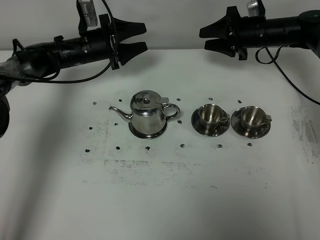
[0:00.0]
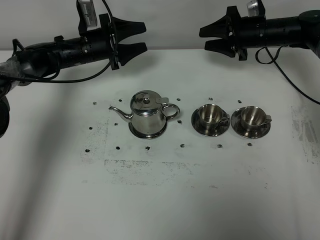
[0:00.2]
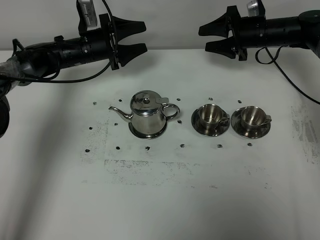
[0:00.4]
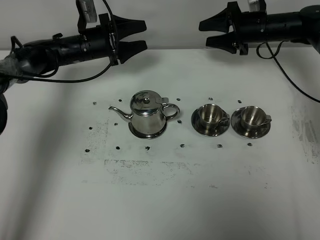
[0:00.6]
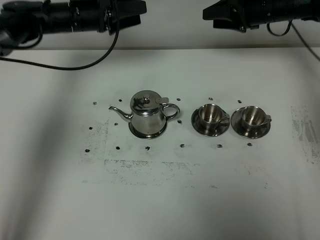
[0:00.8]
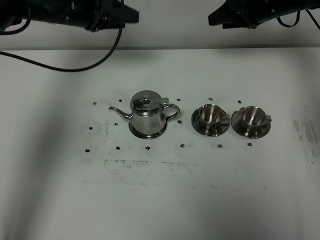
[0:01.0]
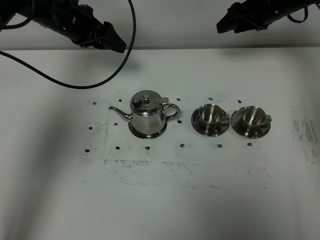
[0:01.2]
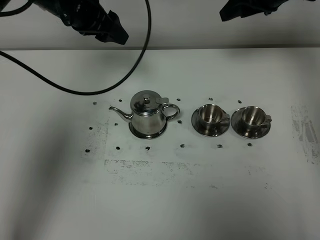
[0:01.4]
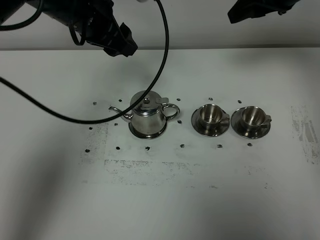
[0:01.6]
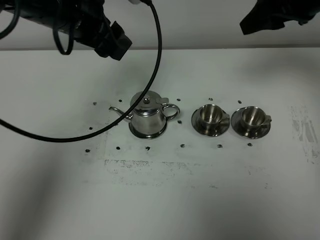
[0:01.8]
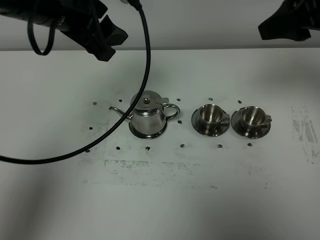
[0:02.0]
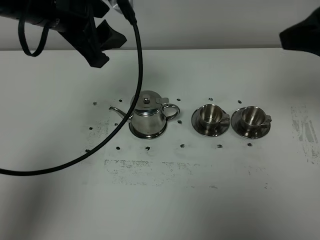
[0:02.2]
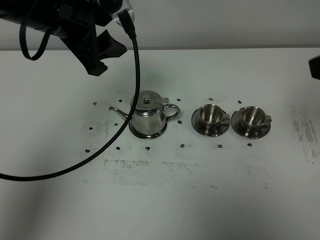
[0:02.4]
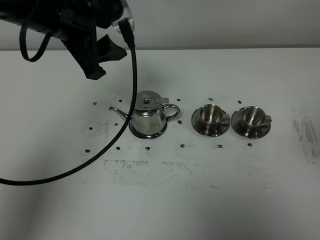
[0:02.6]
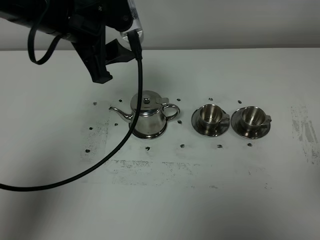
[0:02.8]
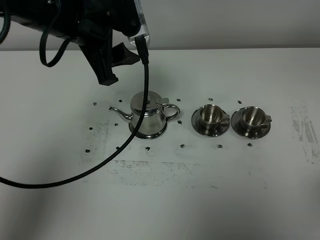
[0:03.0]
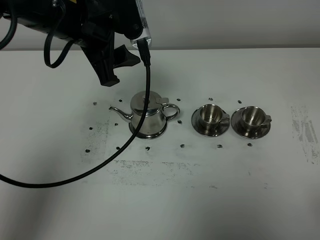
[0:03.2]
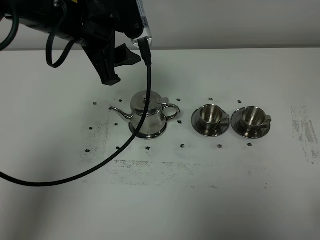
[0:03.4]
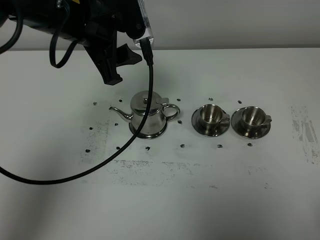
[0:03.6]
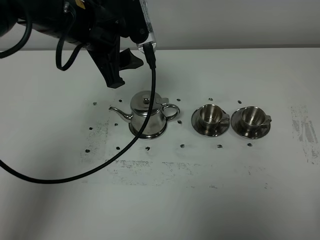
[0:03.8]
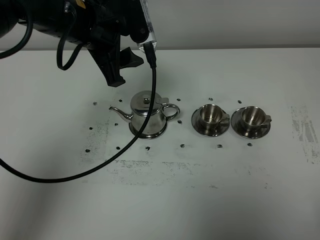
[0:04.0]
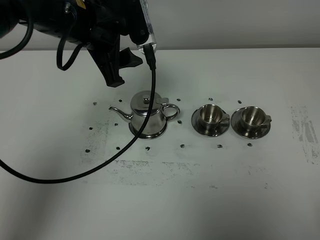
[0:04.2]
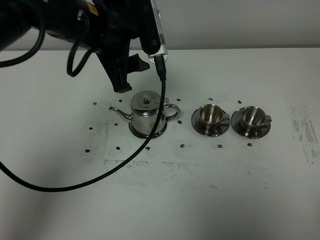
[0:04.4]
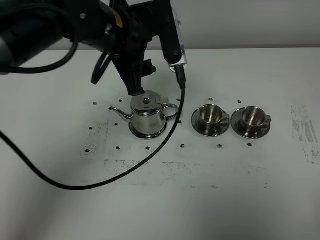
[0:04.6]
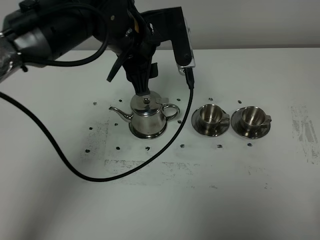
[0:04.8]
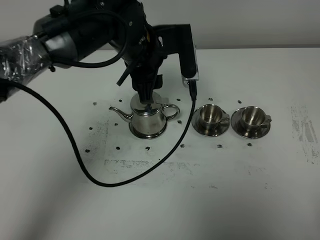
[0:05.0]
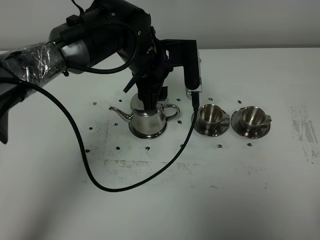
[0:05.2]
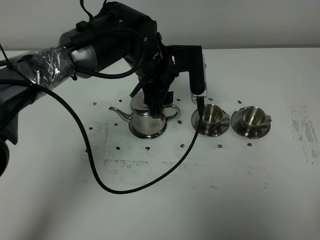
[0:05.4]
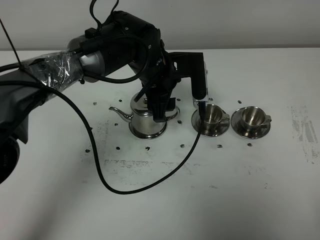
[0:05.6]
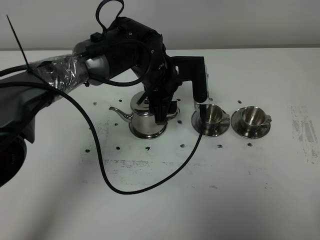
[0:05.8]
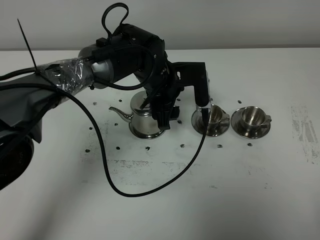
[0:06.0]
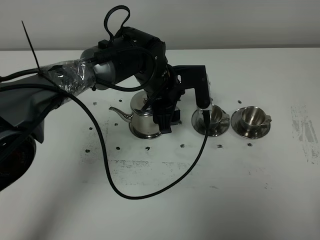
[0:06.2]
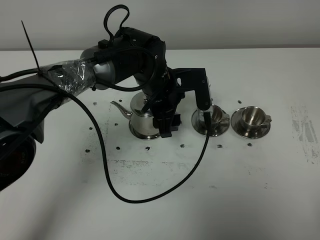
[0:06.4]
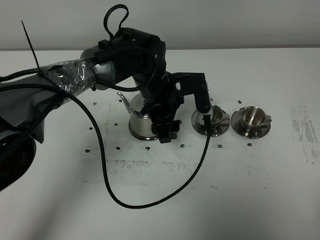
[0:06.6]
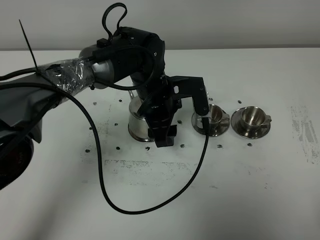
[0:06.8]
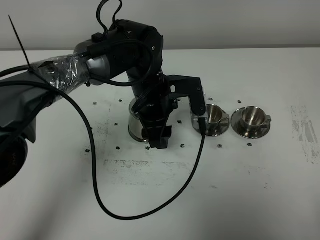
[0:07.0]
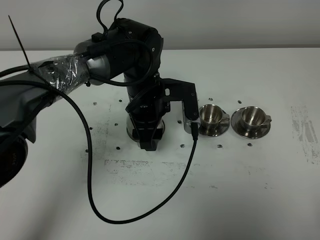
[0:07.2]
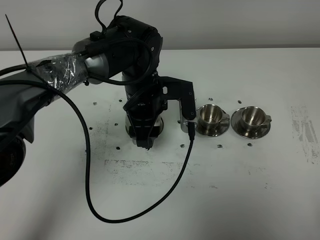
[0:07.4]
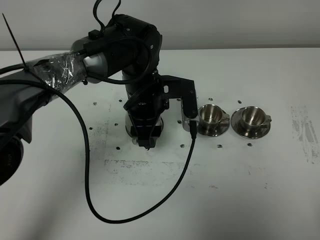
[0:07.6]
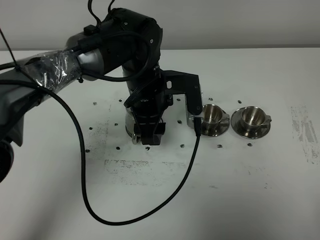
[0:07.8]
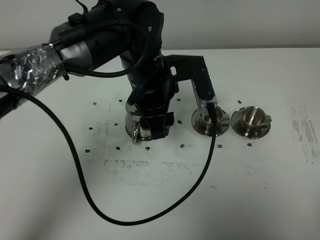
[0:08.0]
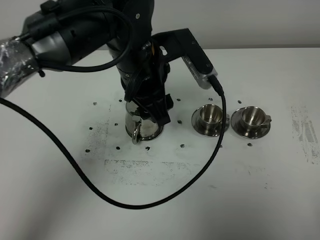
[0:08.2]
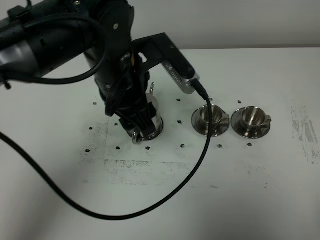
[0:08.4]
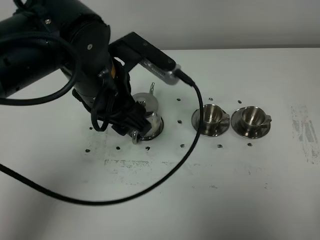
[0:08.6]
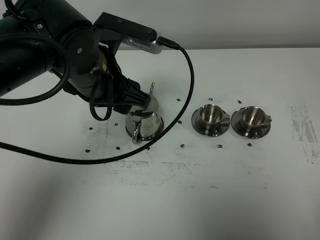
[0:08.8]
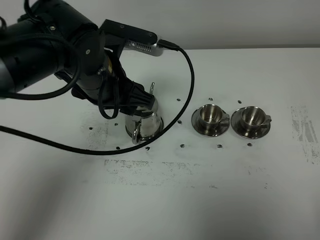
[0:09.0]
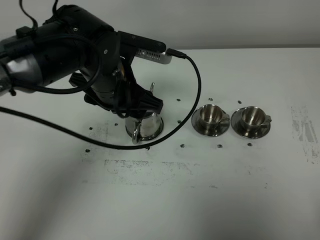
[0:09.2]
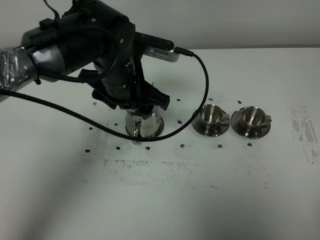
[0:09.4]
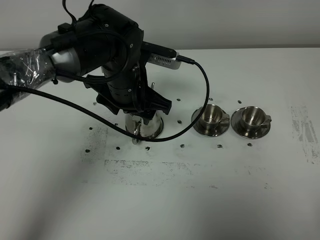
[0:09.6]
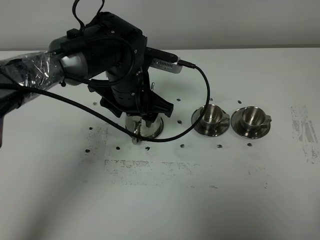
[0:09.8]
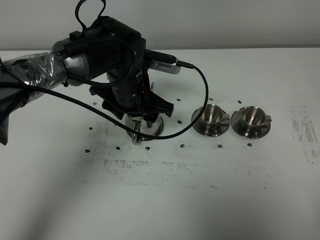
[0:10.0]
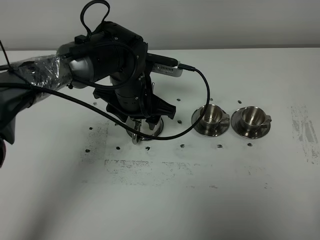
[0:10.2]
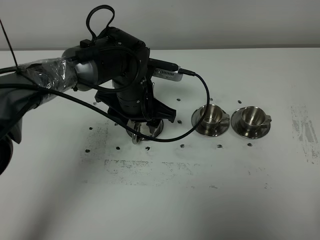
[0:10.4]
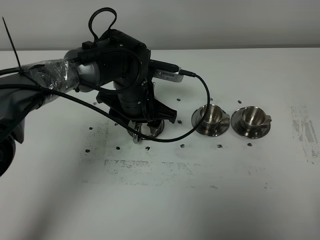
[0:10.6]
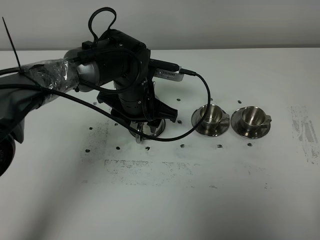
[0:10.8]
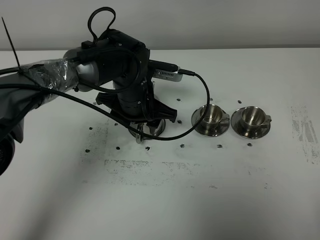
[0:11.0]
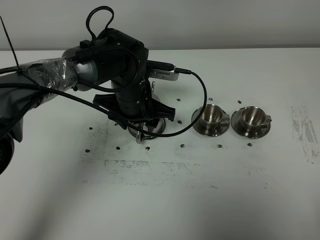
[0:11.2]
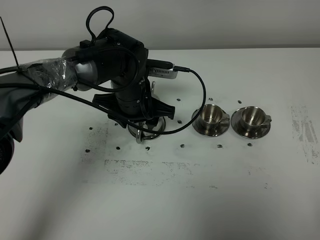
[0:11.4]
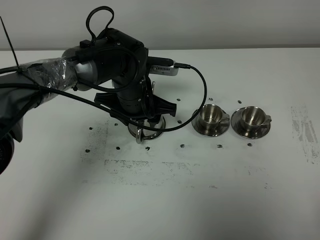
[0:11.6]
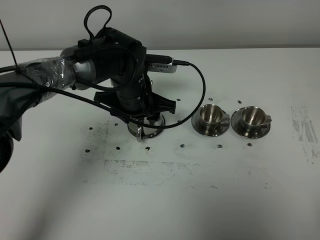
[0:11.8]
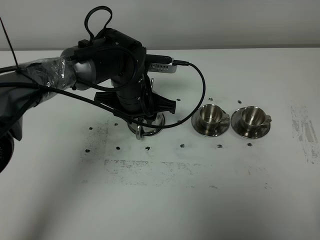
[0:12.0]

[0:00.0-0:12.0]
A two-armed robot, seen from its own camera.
Task of the whole recording: grasp the stainless steel teapot and pour the tea into the two stainless steel teacups one by one, put the stainless steel teapot back in its original place.
0:00.0 to 0:01.6: The two grippers go approximately 25 cm upward and backward.
0:01.6 to 0:03.0: The left gripper travels backward by some 5 cm. Meanwhile the right gripper moves backward, approximately 40 cm.
0:03.0 to 0:04.4: The right gripper goes approximately 5 cm downward.
0:04.4 to 0:06.0: The left gripper moves downward and to the right, roughly 15 cm.
0:07.6 to 0:09.0: The left gripper shifts roughly 10 cm upward and to the left.
0:09.0 to 0:10.4: The left gripper moves downward and forward, approximately 10 cm.
0:10.4 to 0:12.0: The left gripper closes up.

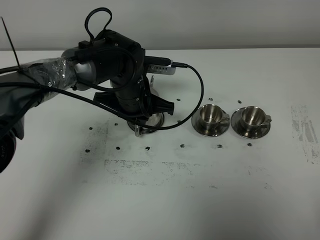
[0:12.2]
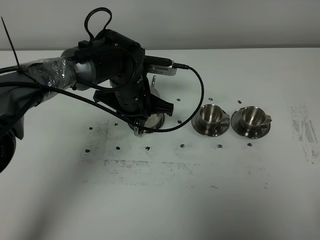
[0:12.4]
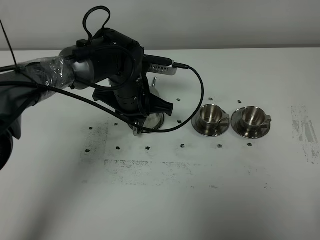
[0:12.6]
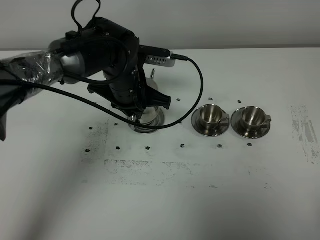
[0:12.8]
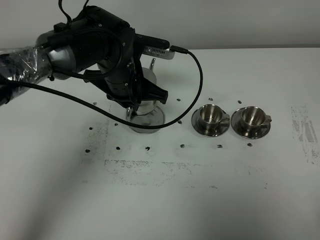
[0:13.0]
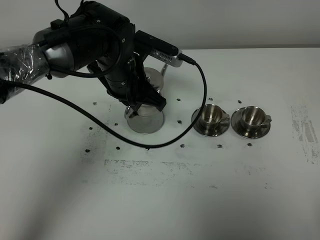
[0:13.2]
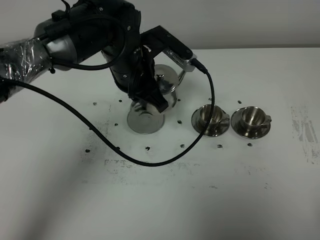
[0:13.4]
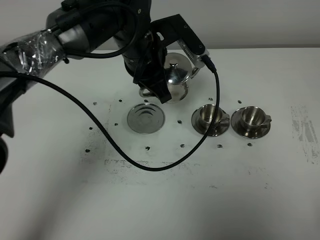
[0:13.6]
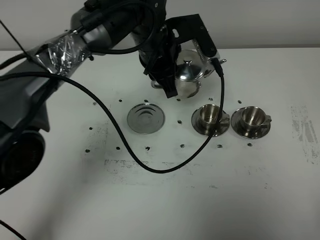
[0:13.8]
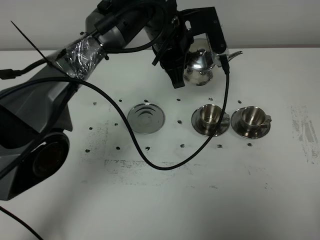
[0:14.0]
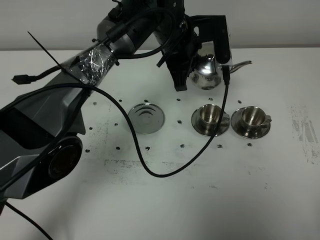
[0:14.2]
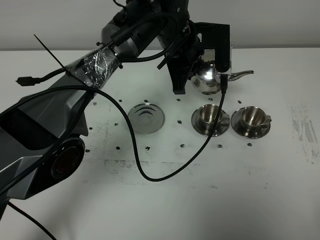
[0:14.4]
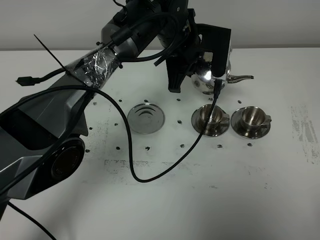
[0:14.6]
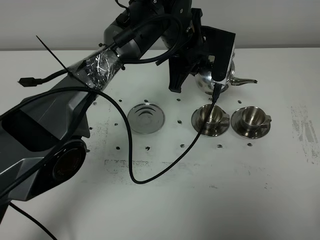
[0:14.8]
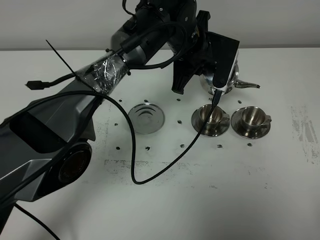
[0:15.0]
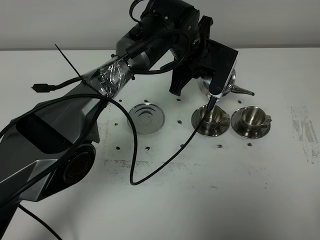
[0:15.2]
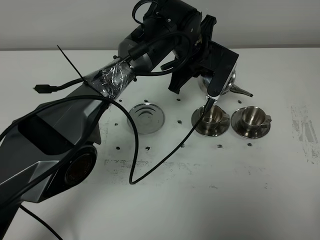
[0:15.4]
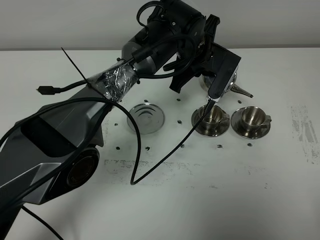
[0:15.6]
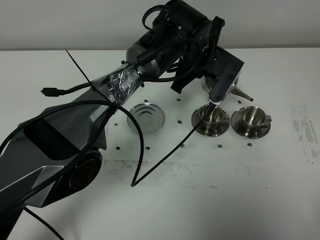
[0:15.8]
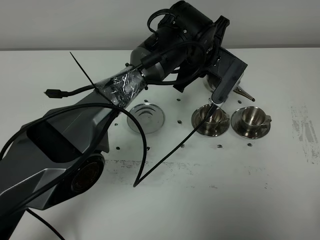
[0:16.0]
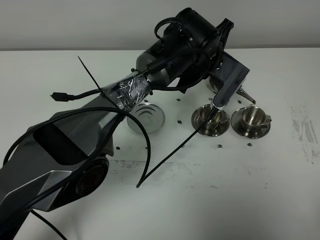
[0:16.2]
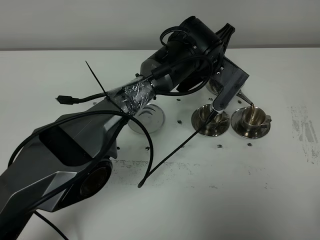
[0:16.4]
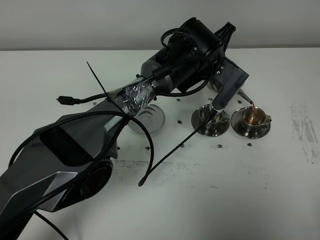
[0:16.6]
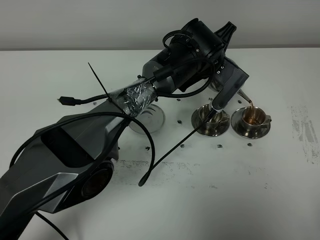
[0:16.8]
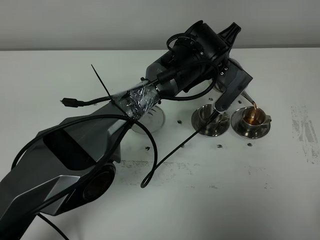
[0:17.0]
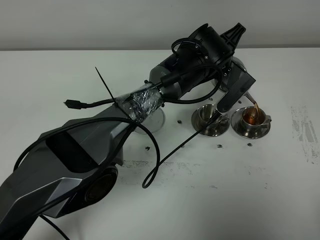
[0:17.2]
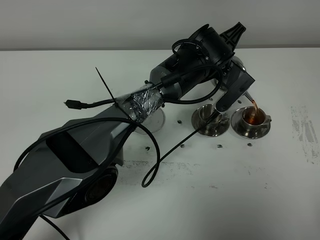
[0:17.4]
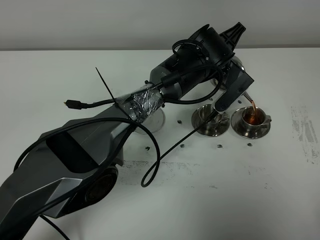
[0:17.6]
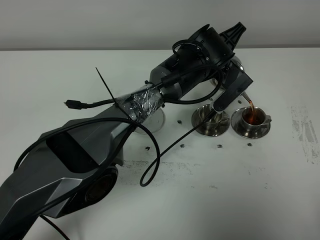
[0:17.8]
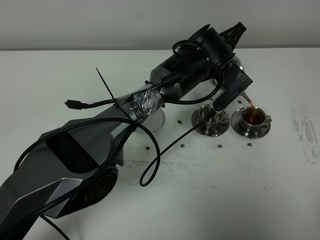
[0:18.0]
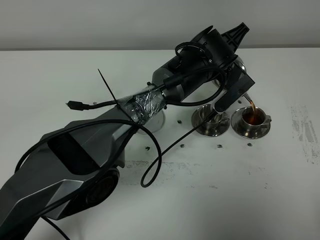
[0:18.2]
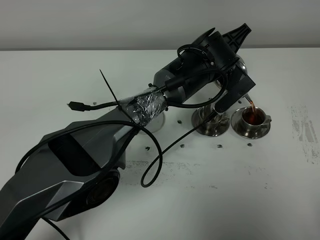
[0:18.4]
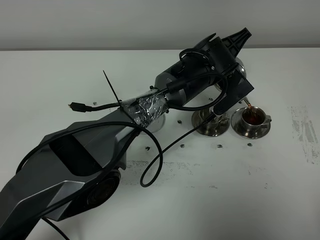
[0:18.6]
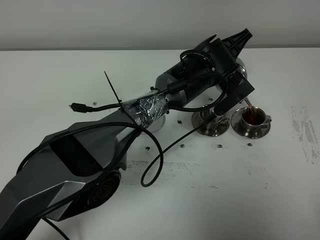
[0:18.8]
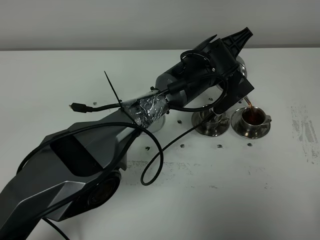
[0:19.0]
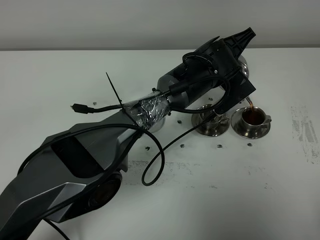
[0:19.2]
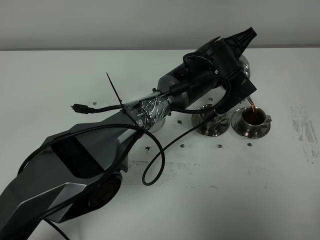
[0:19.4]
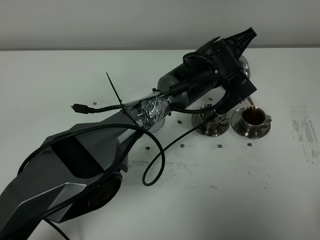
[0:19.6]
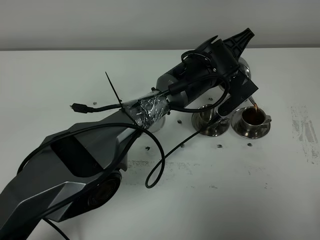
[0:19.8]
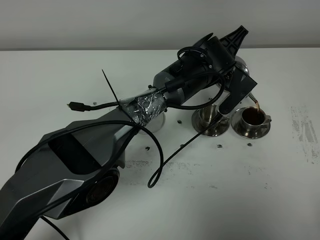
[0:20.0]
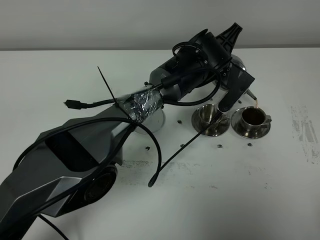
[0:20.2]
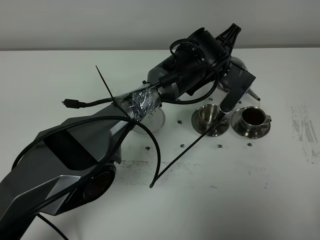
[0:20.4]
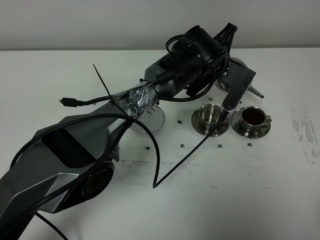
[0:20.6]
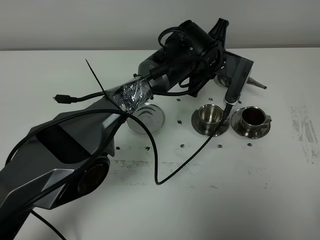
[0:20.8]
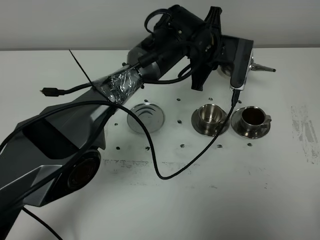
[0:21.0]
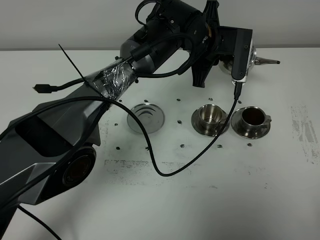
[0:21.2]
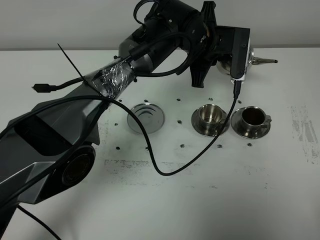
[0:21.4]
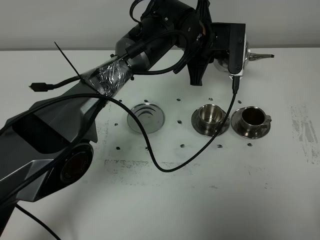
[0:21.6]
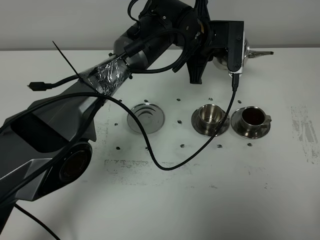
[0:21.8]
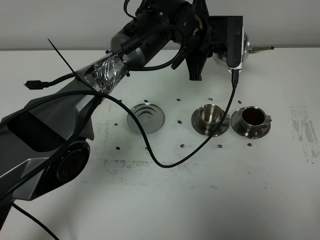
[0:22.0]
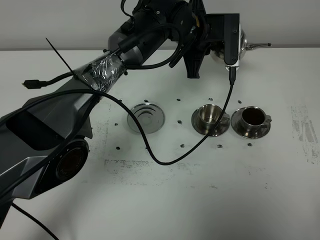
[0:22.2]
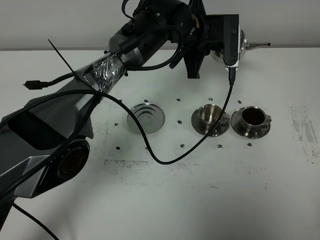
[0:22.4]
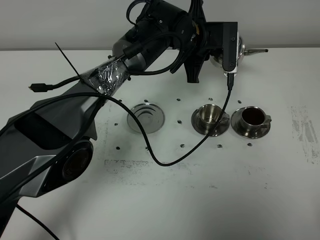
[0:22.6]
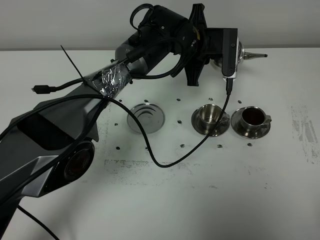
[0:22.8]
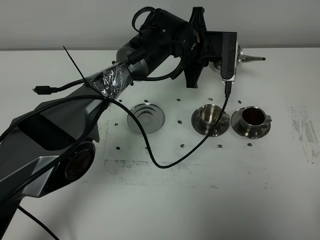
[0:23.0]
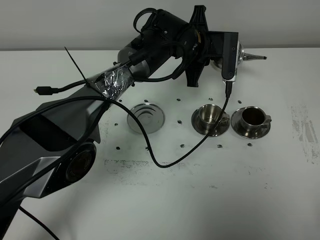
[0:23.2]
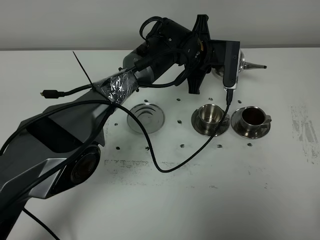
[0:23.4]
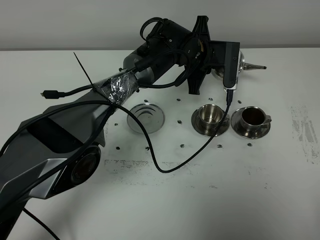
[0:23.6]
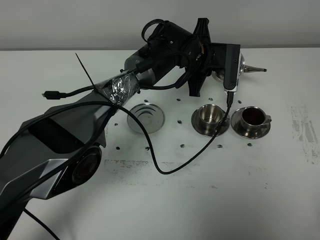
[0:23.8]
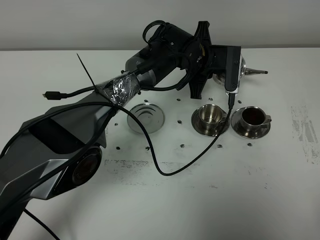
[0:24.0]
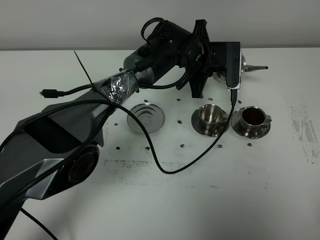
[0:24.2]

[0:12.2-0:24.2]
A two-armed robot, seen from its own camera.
Task of the whole recording: grasp the stainless steel teapot and pour the tea into the two stainless steel teacups one by one, put the stainless steel teapot back in its original place.
Step, 0:13.0 to 0:20.6: Pour tea into the teacup with the left gripper.
0:12.2 to 0:13.8: The left gripper goes some 10 cm upward and to the right.
0:13.8 to 0:15.2: The left gripper heads to the right, covering some 5 cm.
0:16.6 to 0:19.8: There are only small adjustments of the grippers.
0:19.8 to 0:21.2: The left gripper changes place by roughly 5 cm.
0:21.2 to 0:22.6: The grippers make only small movements.
0:22.6 to 0:24.2: The grippers move only a little.
